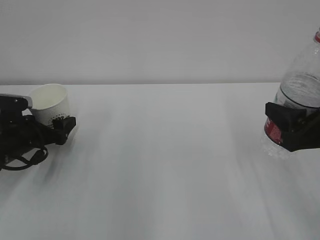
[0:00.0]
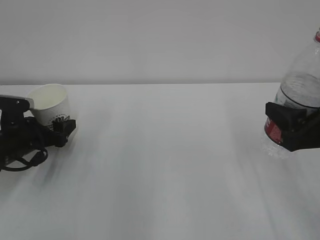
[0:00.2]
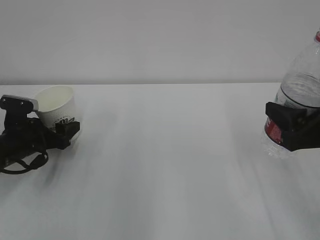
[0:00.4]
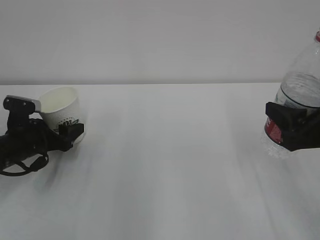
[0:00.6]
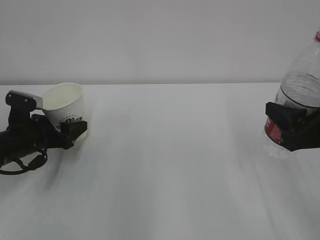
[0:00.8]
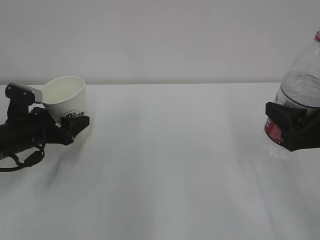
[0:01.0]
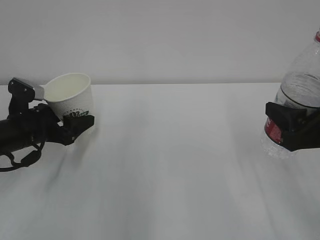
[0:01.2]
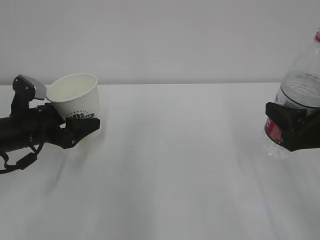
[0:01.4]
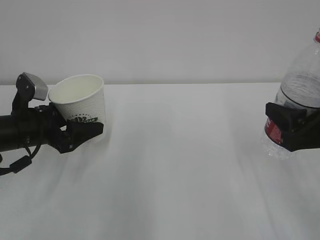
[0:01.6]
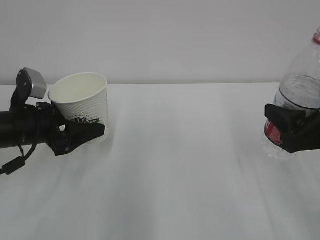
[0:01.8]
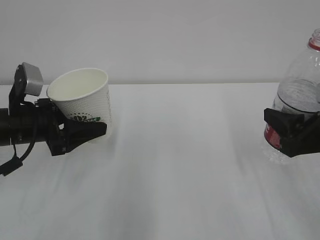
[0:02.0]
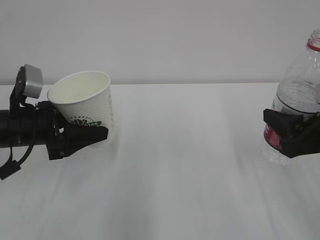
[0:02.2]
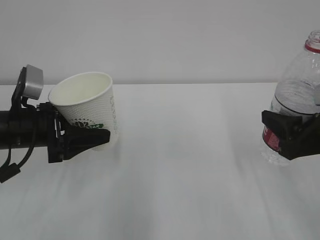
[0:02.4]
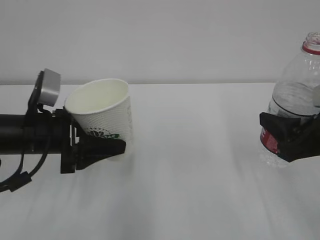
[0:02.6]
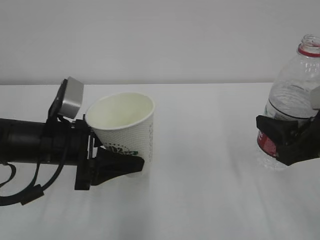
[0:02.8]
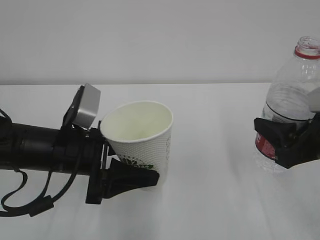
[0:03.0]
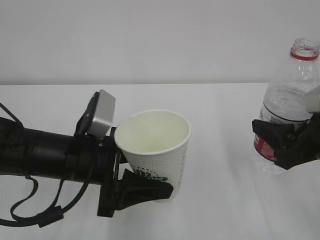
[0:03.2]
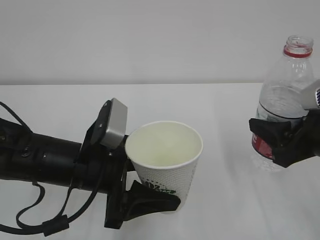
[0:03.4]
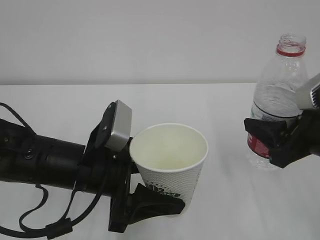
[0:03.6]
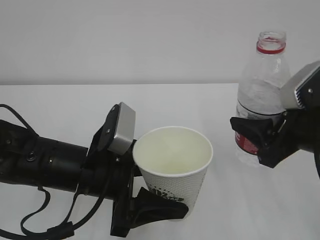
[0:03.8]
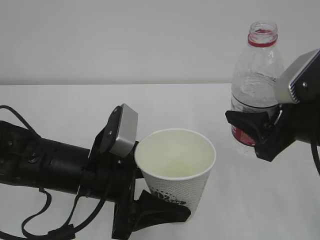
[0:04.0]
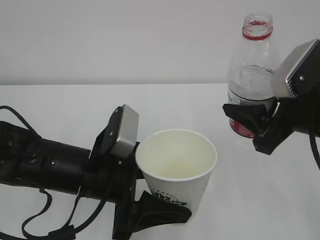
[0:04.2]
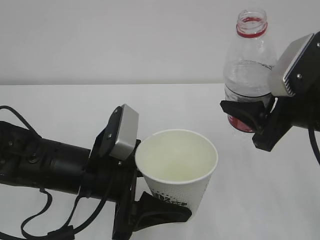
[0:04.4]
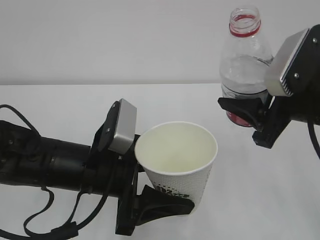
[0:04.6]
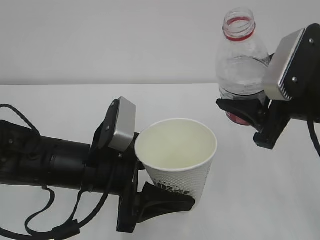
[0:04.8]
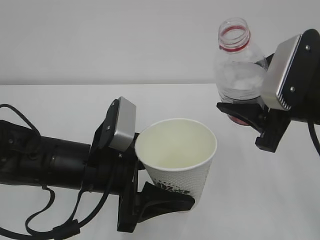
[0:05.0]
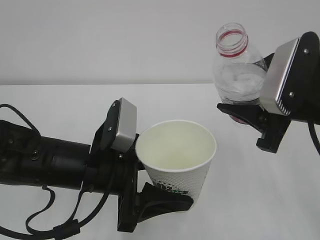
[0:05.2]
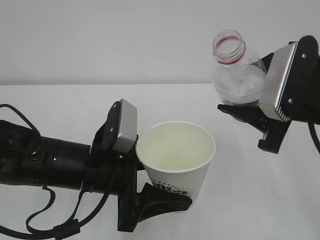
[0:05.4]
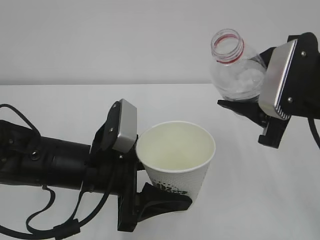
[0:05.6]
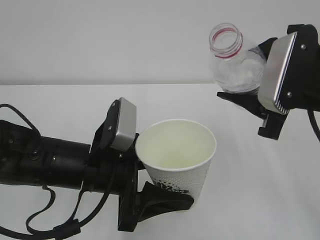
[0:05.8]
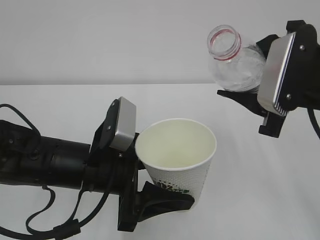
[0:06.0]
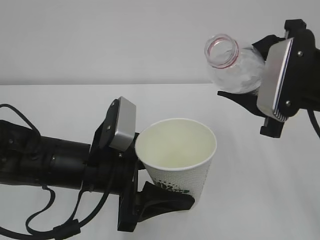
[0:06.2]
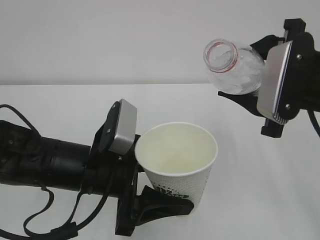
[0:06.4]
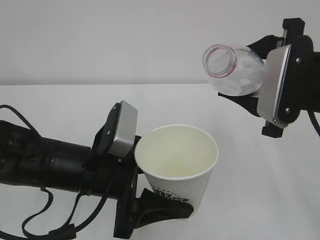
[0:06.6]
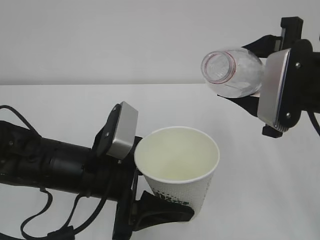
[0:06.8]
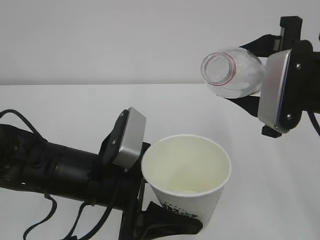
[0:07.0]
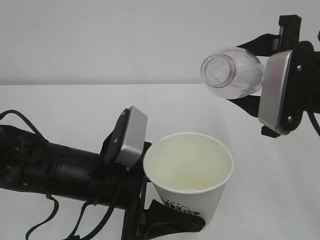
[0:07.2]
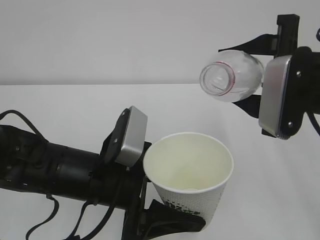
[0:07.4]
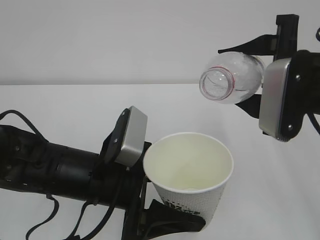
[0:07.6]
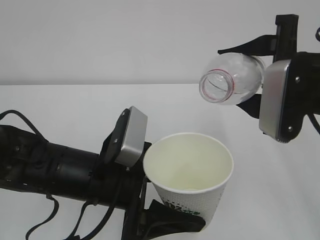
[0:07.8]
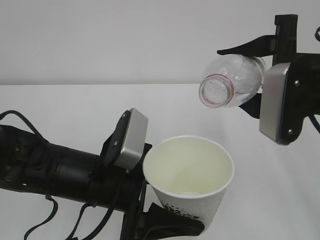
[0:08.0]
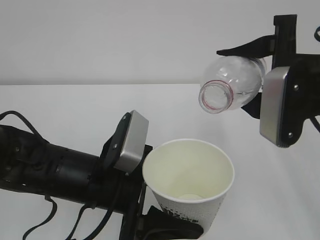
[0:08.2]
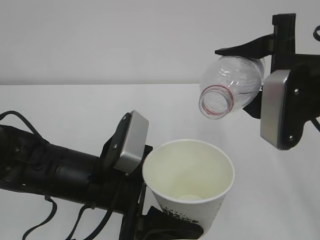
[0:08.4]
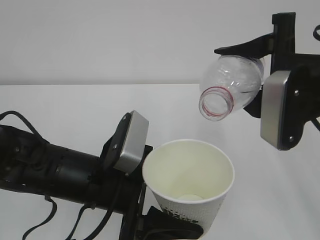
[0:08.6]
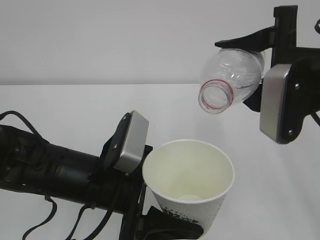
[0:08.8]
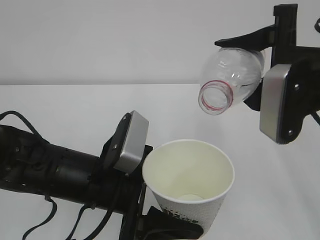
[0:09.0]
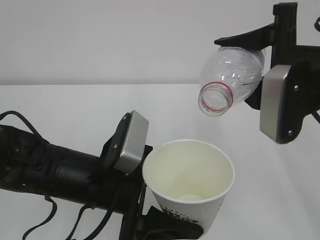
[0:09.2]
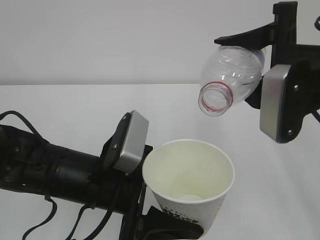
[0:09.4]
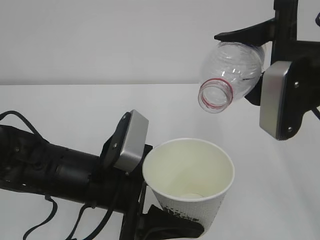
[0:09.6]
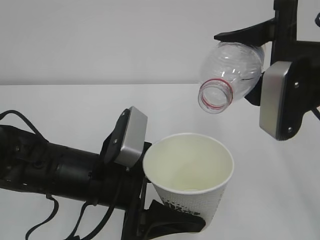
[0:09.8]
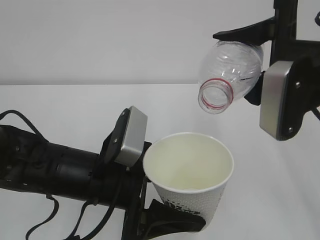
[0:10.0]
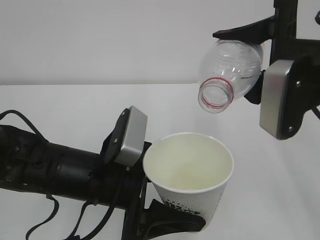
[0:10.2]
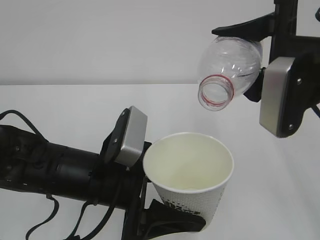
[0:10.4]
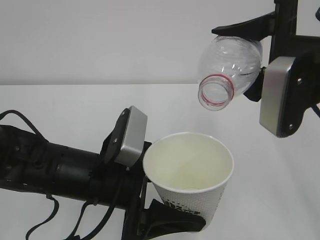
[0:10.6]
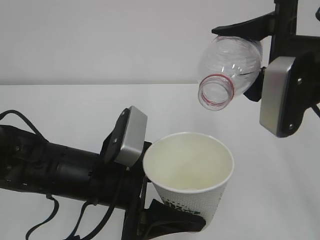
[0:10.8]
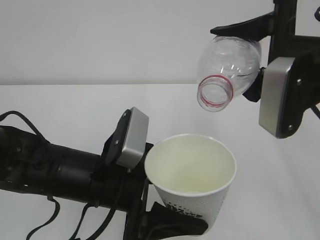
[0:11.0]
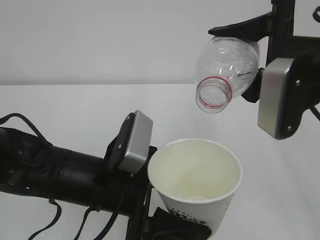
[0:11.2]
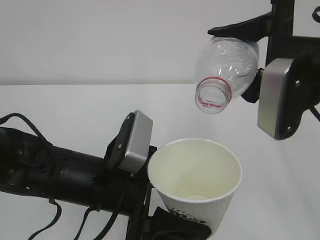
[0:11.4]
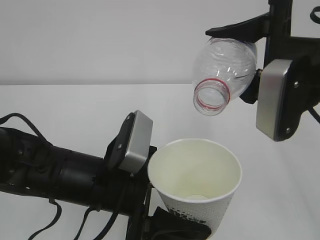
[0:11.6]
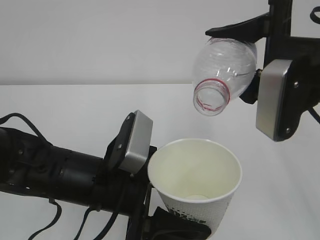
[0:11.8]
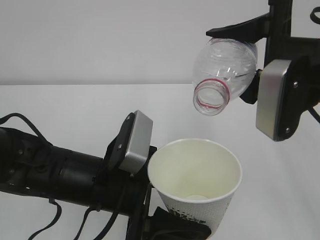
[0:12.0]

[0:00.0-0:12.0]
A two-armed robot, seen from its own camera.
0:00.0 to 0:01.6: The left gripper shifts approximately 5 cm upward, and closes up.
0:01.6 to 0:03.0: The left gripper moves to the right and backward, roughly 10 cm.
0:03.0 to 0:04.4: The left gripper moves approximately 5 cm. Meanwhile the right gripper moves about 5 cm.
0:07.6 to 0:09.0: The grippers move only a little.
0:09.0 to 0:10.4: The two grippers keep their place.
0:10.4 to 0:12.0: The two grippers keep their place.

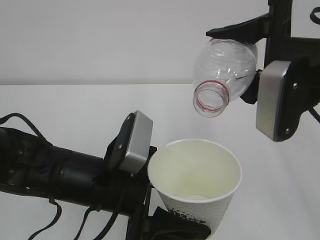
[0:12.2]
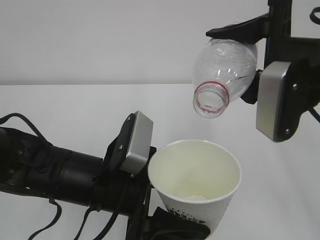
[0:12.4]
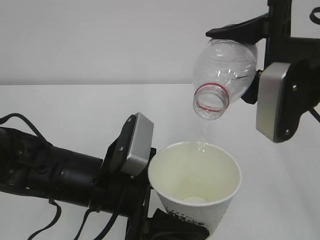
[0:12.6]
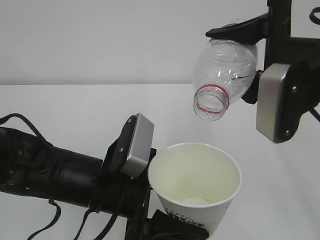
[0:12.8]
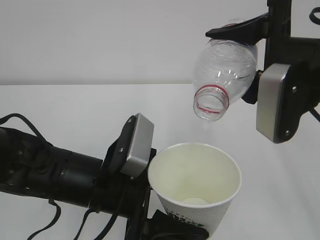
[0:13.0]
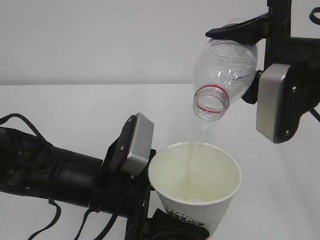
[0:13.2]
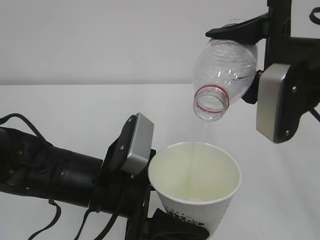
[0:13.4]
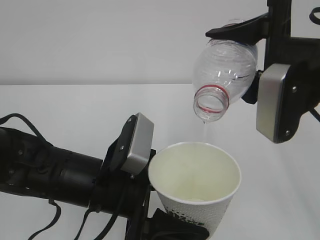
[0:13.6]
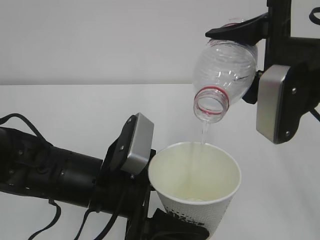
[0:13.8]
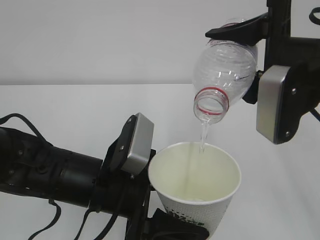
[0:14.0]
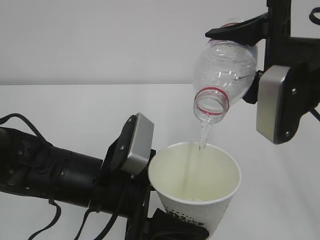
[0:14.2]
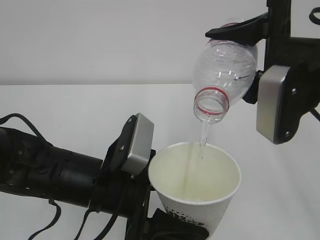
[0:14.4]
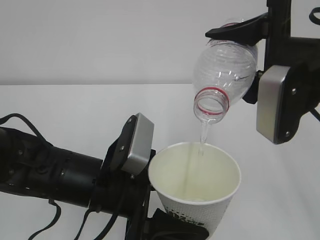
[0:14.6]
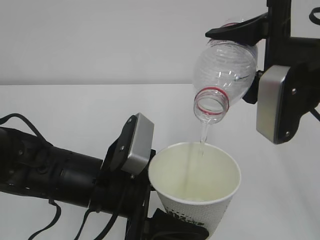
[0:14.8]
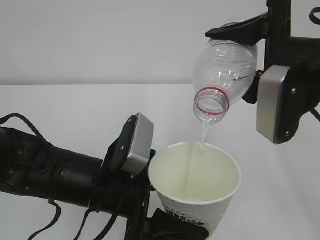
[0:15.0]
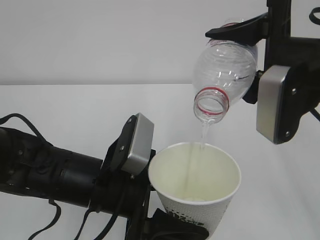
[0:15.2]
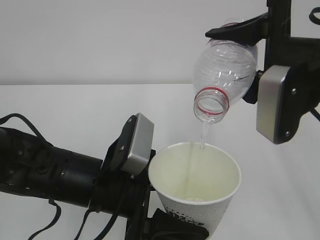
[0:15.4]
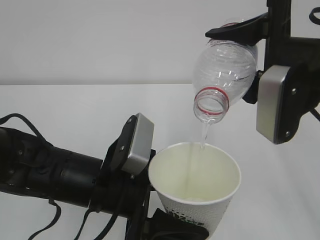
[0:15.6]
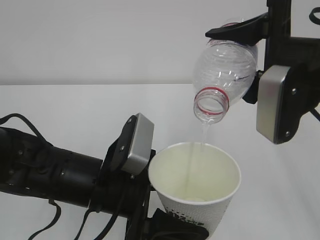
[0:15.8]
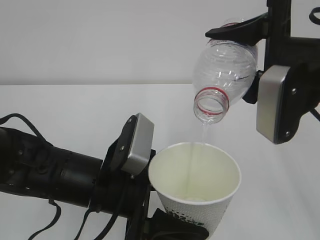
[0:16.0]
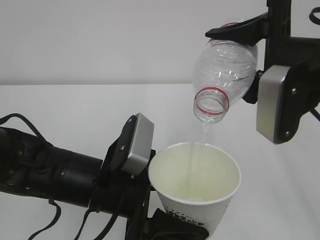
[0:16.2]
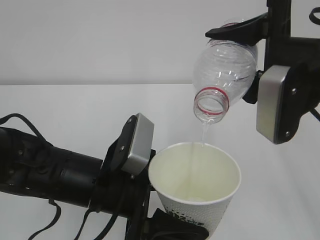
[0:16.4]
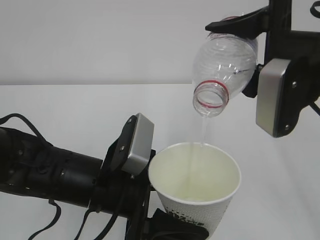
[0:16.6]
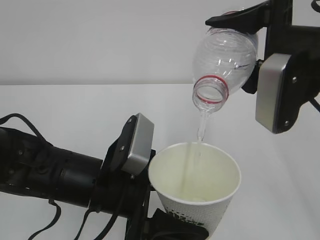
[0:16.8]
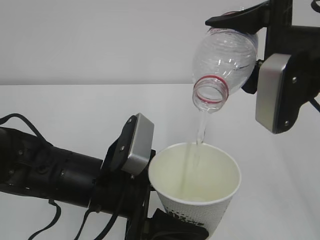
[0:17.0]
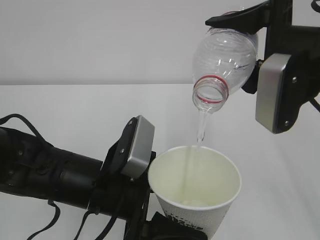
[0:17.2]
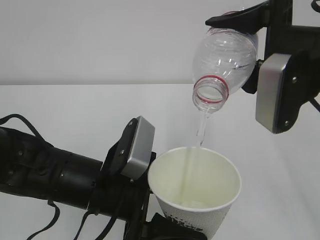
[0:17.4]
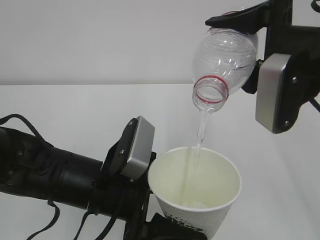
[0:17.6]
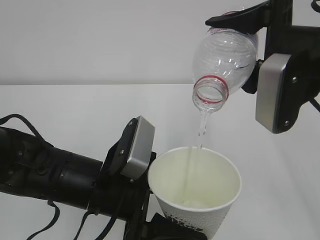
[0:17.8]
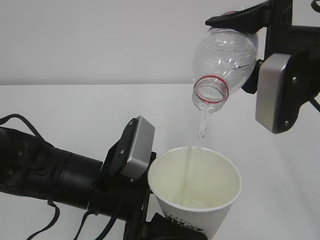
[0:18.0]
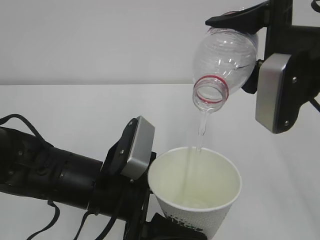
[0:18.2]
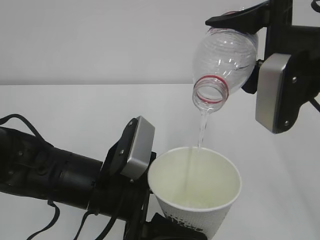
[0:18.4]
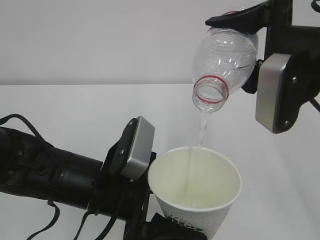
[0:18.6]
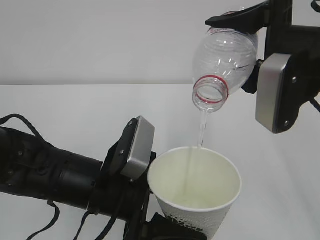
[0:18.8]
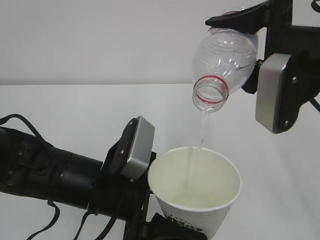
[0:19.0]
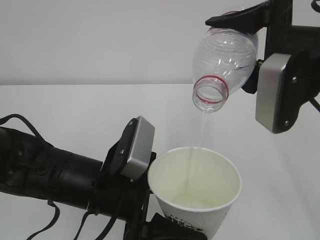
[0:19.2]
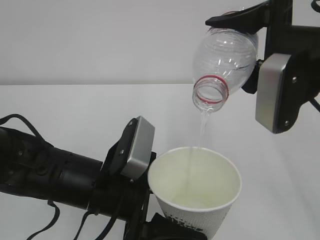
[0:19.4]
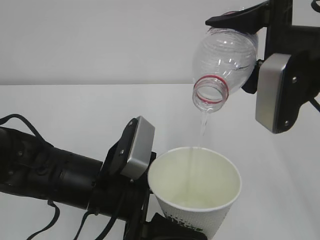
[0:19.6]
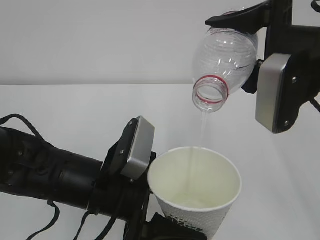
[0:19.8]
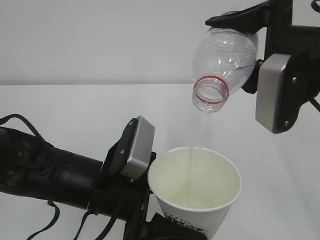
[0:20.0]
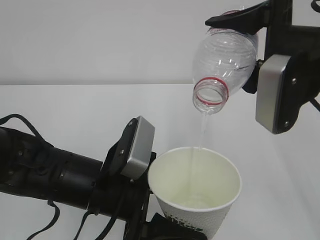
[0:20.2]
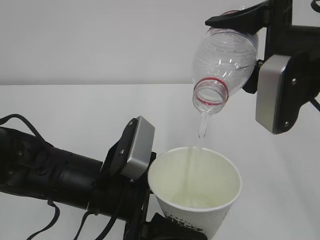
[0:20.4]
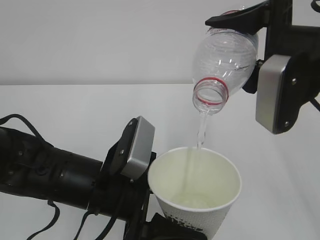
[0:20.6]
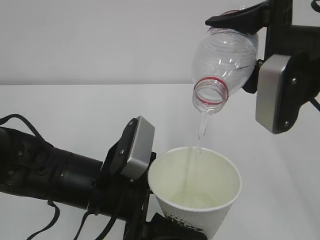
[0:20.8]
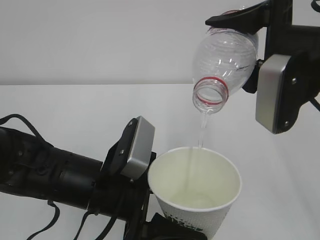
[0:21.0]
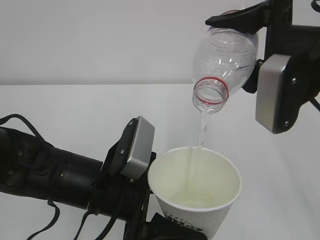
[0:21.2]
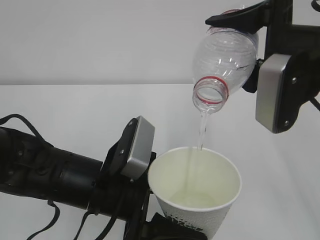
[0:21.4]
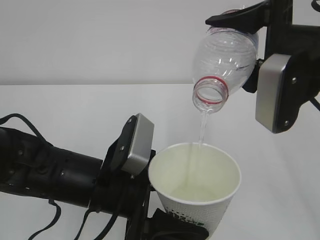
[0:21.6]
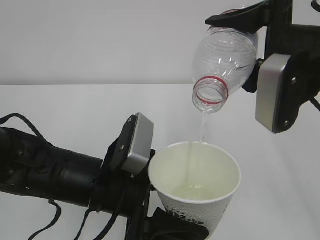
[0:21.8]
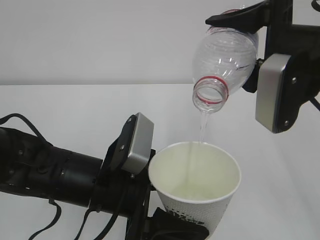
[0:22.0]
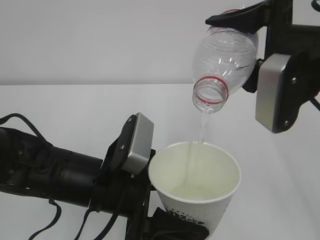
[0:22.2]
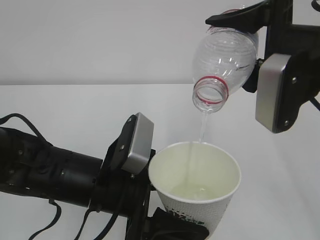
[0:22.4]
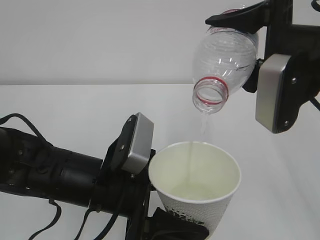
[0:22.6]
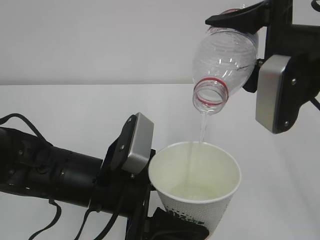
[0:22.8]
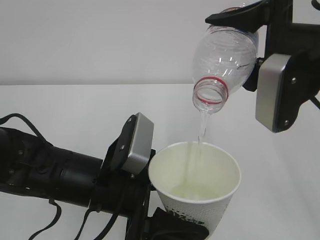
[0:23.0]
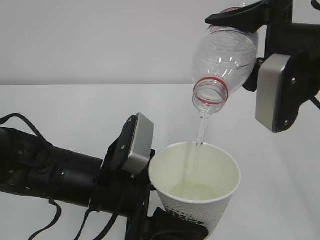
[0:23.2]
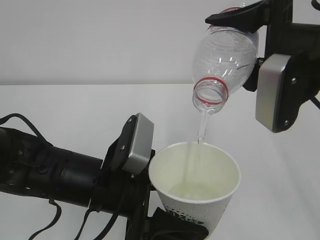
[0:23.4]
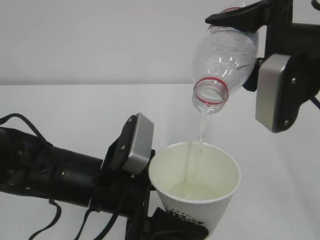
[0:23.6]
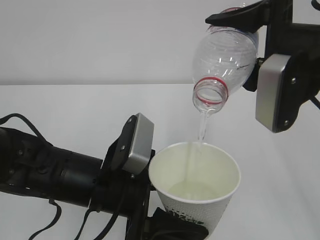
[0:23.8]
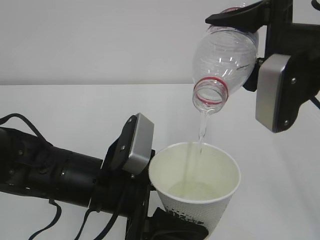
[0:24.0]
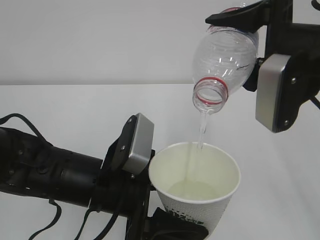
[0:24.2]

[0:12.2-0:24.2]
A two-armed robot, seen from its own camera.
0:12.2 to 0:19.8: Neither gripper changes place.
0:19.8 to 0:24.2: Neither gripper changes place.
